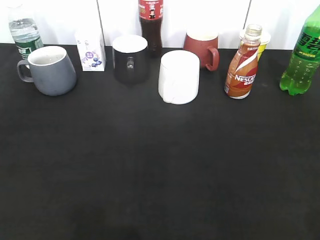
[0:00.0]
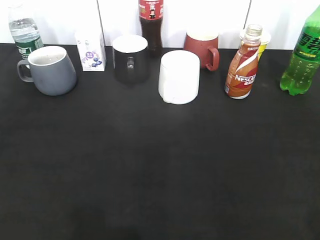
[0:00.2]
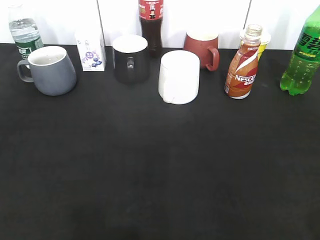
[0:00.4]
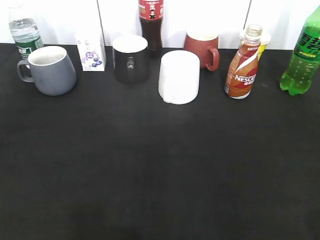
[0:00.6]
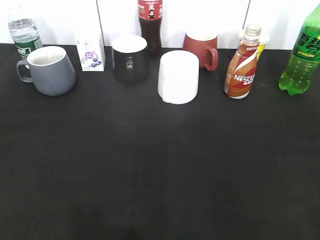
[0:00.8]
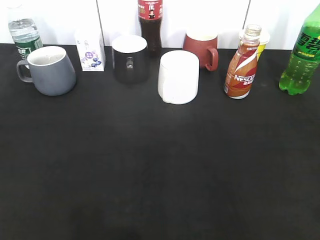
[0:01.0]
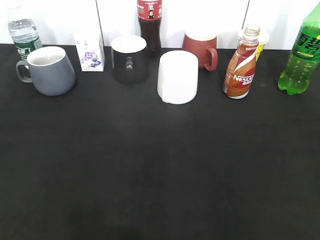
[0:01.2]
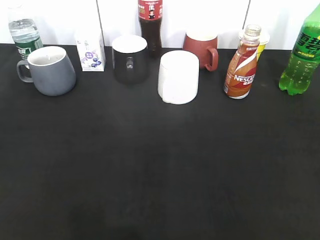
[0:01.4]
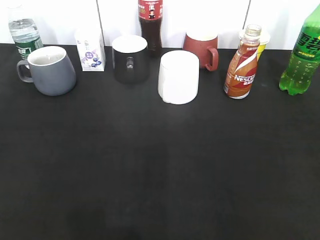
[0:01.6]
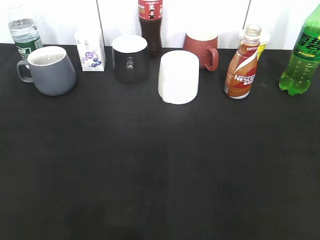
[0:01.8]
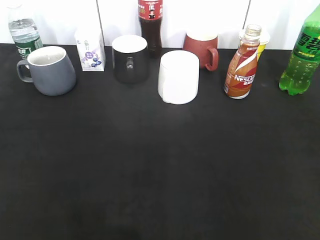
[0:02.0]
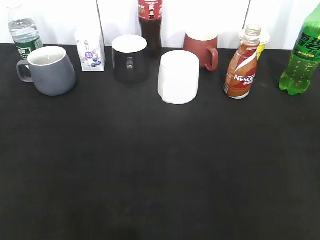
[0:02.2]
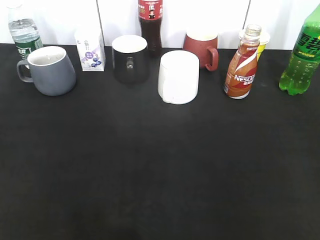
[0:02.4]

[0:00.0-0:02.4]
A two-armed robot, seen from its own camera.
0:00.0 to 0:01.2: The left gripper closes.
0:01.2 to 0:02.4: The two grippers keep their place.

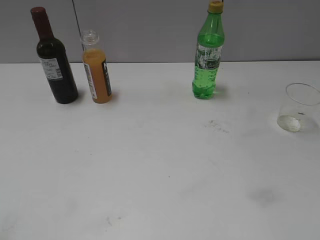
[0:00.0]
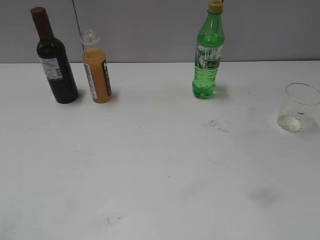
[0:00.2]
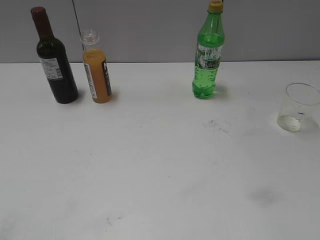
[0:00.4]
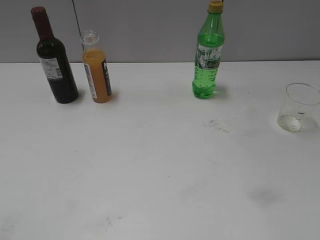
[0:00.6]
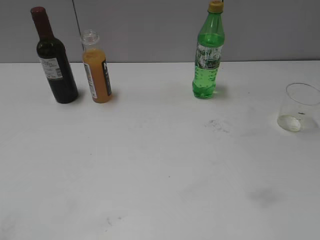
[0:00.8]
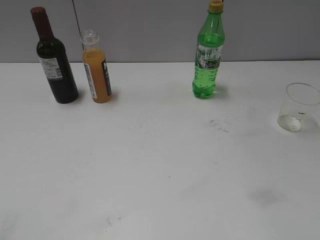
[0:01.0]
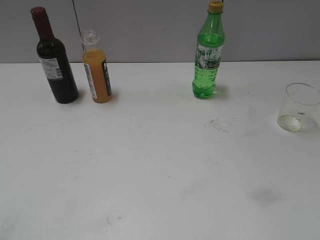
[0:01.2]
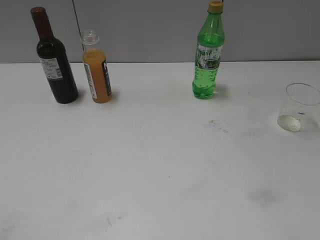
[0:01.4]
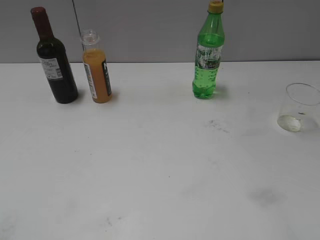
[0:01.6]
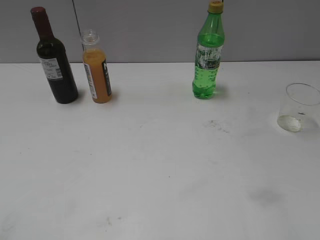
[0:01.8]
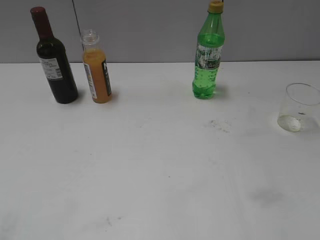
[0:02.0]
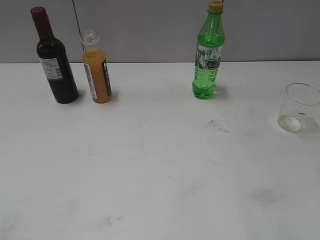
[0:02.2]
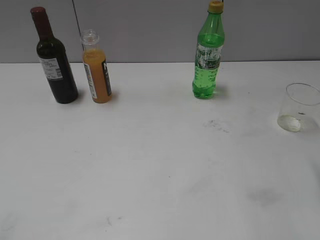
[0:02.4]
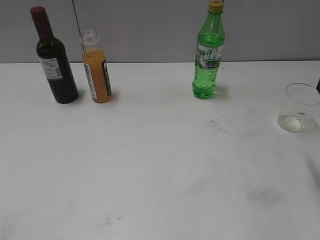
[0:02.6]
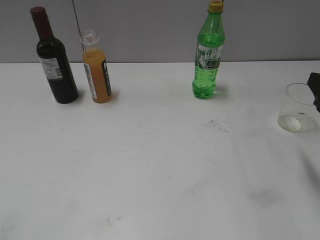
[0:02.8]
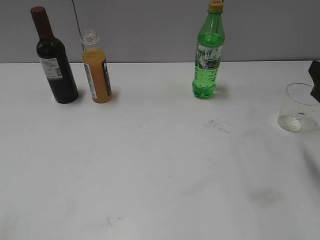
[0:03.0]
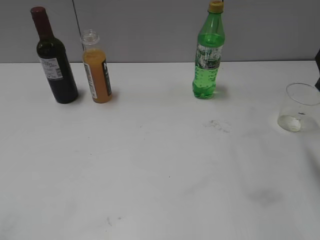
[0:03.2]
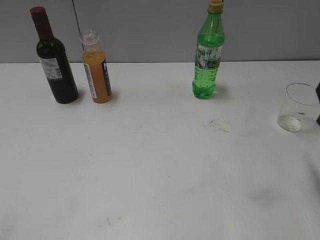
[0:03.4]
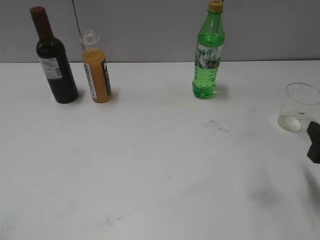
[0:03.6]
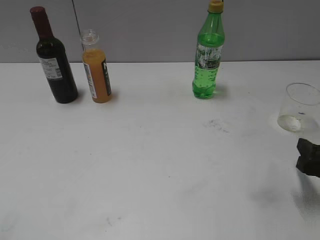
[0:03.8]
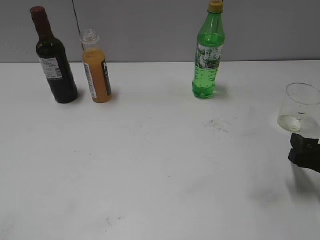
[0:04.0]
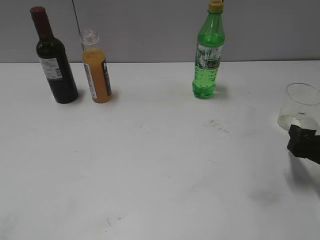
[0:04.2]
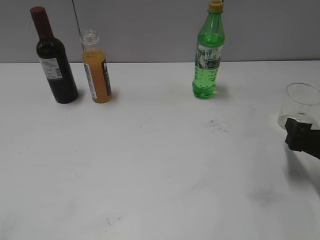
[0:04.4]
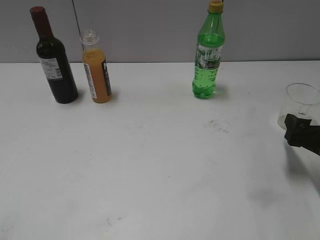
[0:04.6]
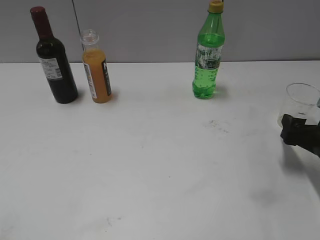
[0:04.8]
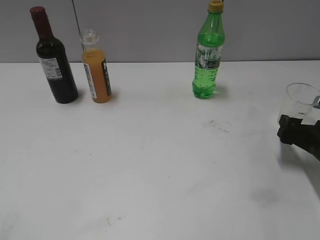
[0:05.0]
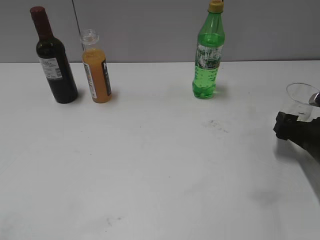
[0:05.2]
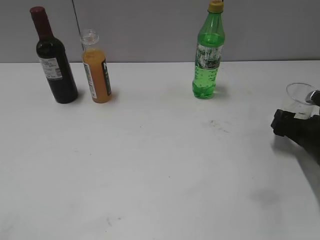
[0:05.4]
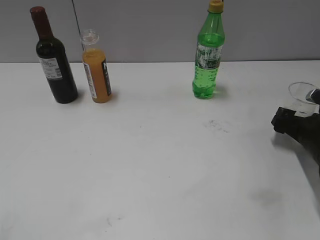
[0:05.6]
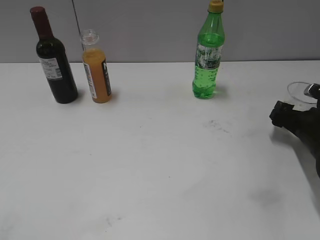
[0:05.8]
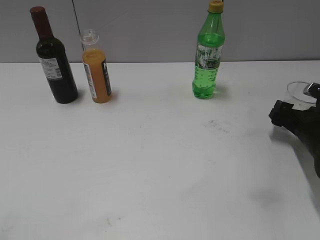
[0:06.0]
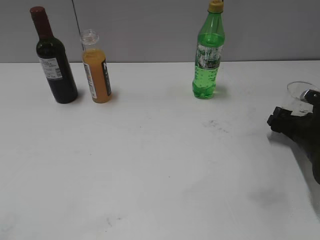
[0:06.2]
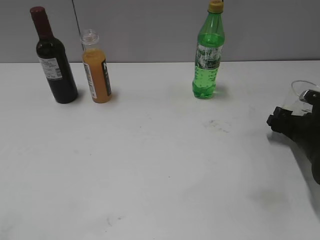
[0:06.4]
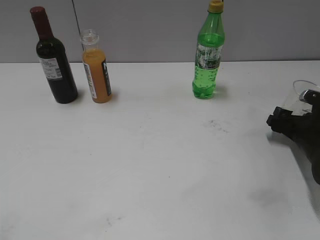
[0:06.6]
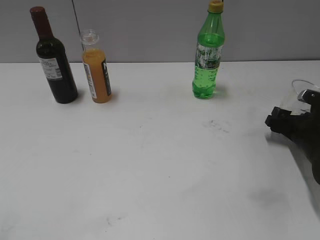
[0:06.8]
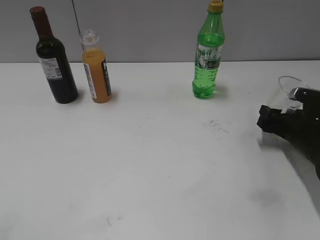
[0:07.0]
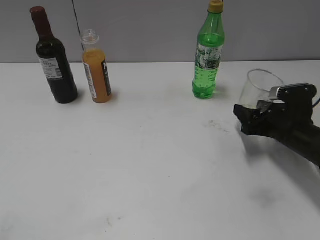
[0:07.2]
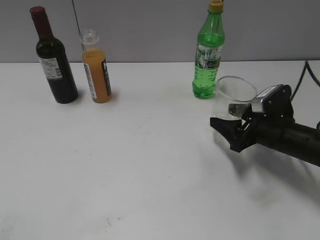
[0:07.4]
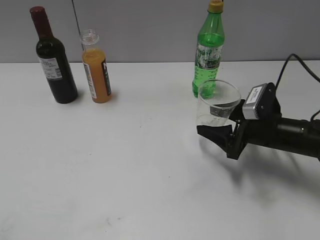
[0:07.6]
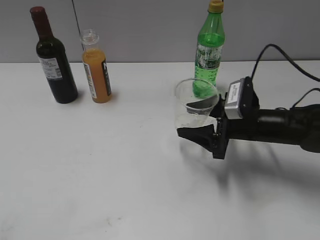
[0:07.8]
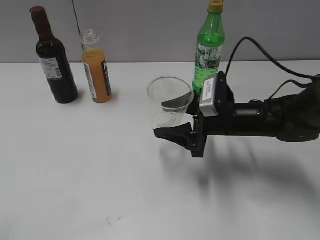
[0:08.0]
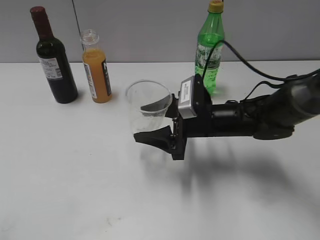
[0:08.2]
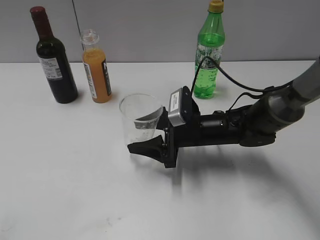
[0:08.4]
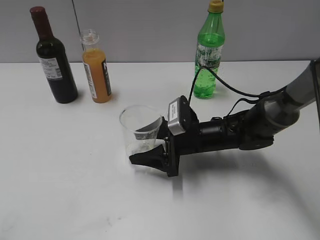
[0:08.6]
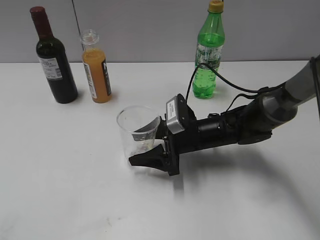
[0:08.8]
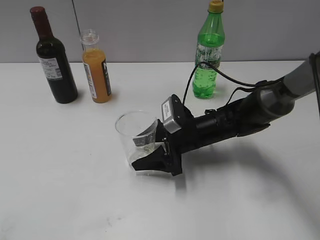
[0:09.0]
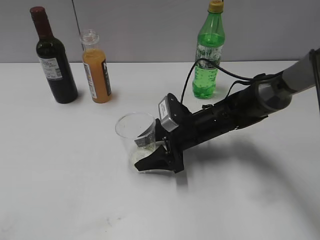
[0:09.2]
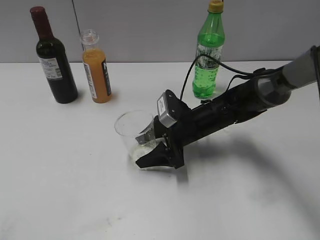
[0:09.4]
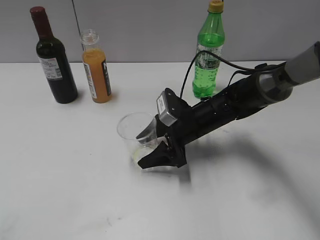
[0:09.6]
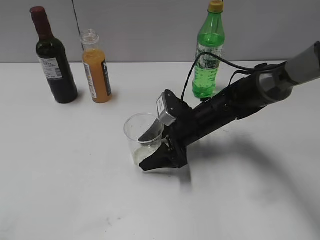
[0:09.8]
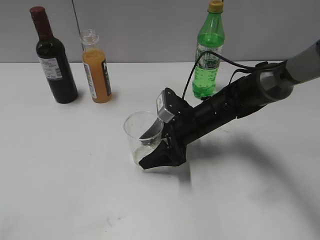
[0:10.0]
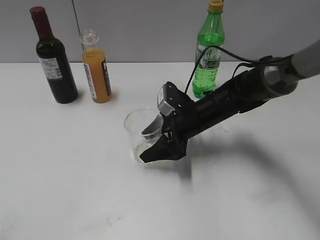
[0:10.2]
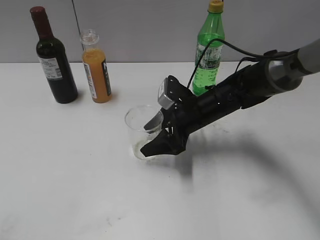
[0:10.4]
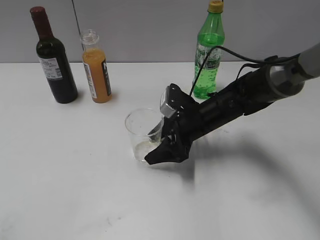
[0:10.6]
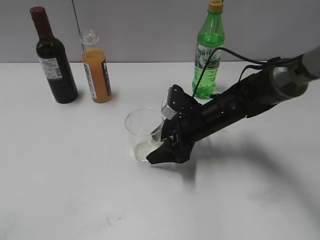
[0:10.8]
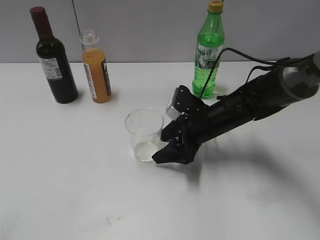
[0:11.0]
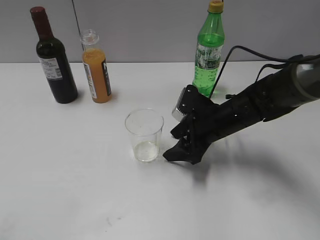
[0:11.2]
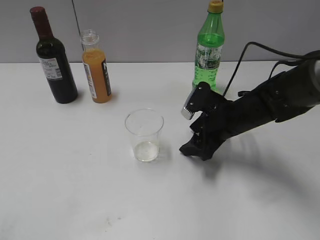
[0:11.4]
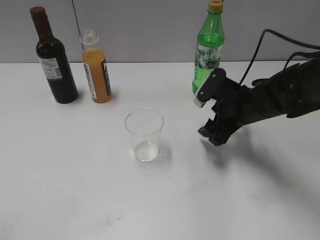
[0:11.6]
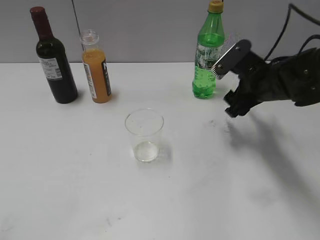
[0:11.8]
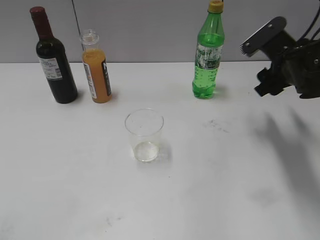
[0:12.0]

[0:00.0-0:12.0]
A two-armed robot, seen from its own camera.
Step, 0:02.6 to 0:06.6: Grasp the transparent cup with right gripper.
Step, 0:06.8 to 0:11.0: Place the transparent cup on the table with right gripper.
0:01.6 to 0:03.0: The right gripper shifts roughly 20 cm forward and downward.
0:03.0 to 0:04.4: The right gripper goes about 10 cm downward, and opens up.
0:04.4 to 0:06.0: The right gripper goes about 10 cm forward.
0:06.0 to 0:07.6: The right gripper travels to the left by approximately 10 cm, and closes up.
0:07.6 to 0:09.0: The right gripper heads to the left, covering about 15 cm.
0:09.0 to 0:10.4: The right gripper opens its fingers.
0:10.4 to 0:12.0: The right gripper heads to the right and upward, covering roughly 15 cm.

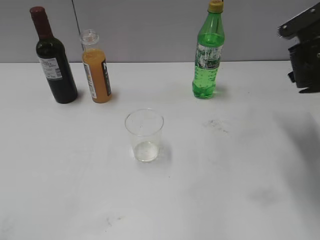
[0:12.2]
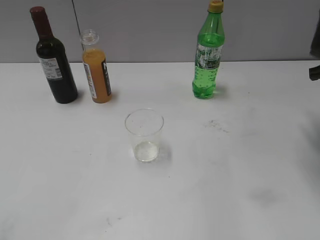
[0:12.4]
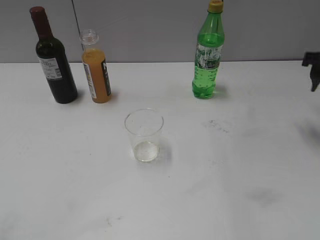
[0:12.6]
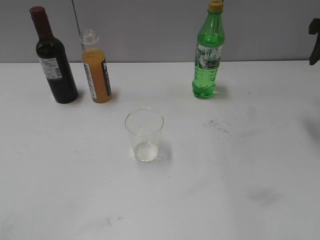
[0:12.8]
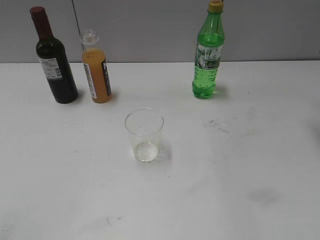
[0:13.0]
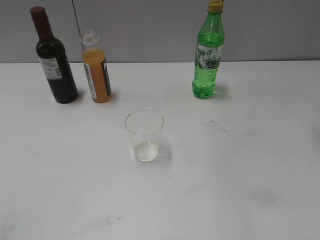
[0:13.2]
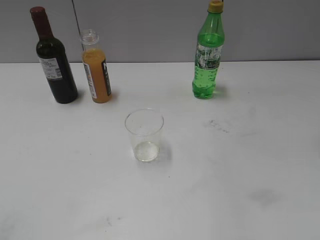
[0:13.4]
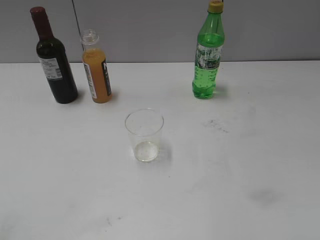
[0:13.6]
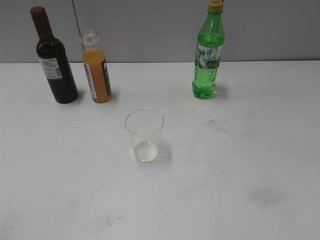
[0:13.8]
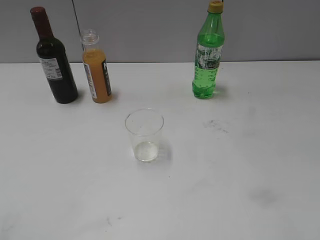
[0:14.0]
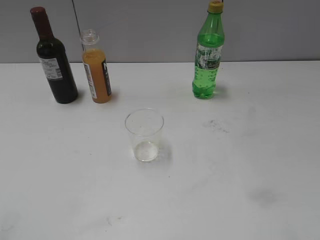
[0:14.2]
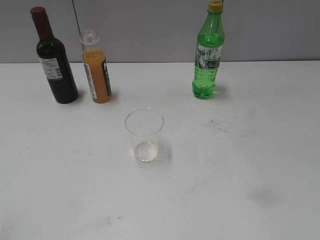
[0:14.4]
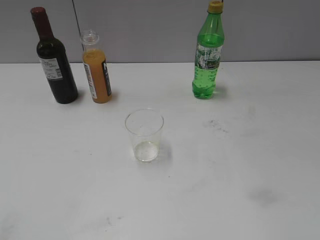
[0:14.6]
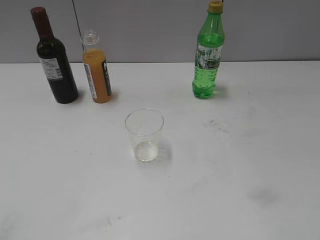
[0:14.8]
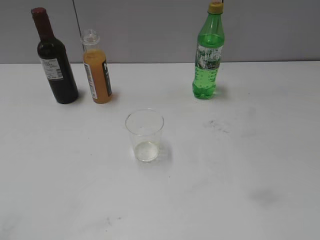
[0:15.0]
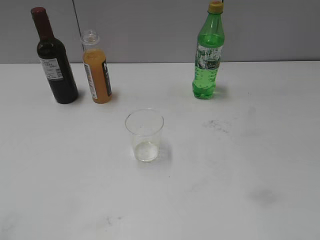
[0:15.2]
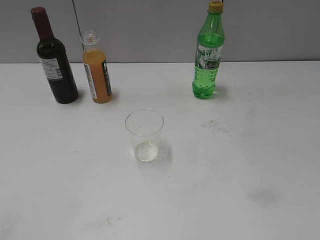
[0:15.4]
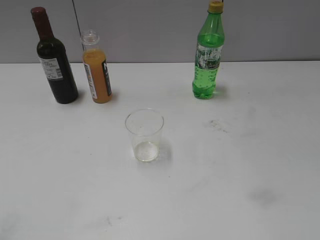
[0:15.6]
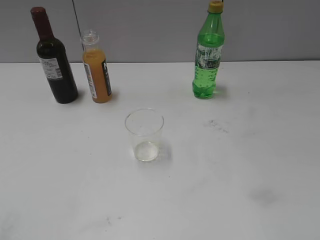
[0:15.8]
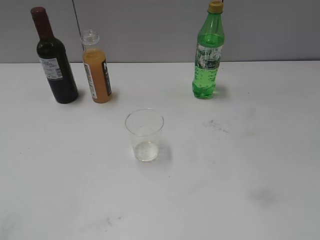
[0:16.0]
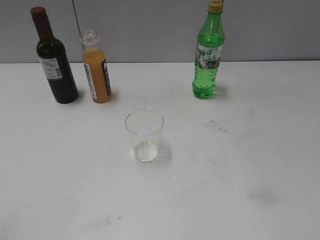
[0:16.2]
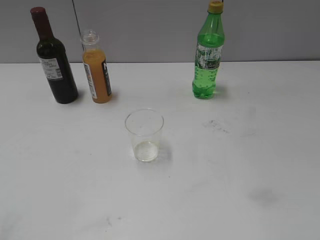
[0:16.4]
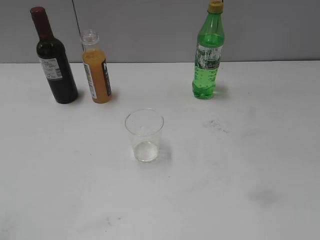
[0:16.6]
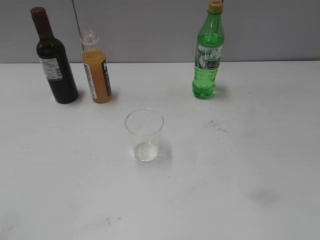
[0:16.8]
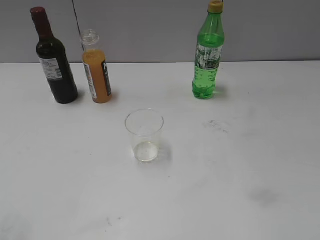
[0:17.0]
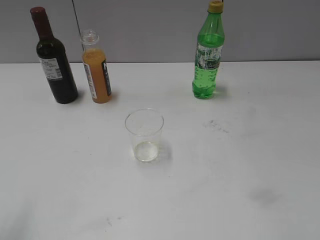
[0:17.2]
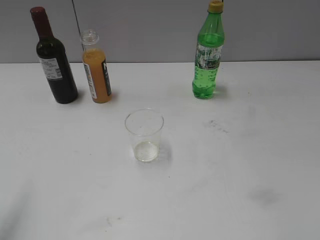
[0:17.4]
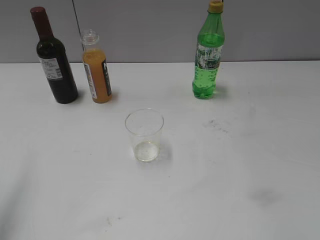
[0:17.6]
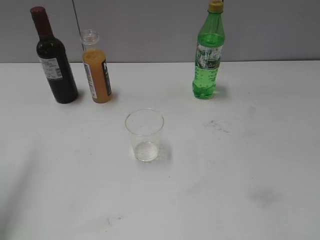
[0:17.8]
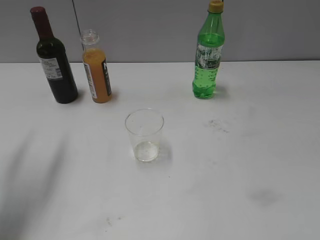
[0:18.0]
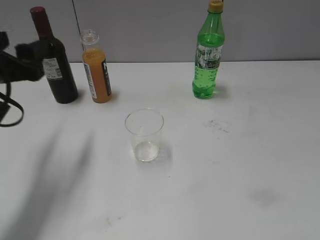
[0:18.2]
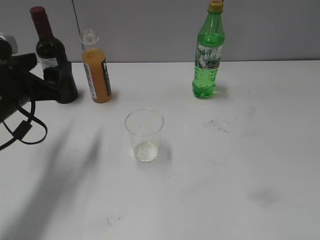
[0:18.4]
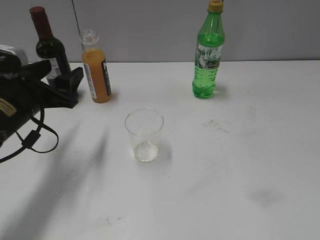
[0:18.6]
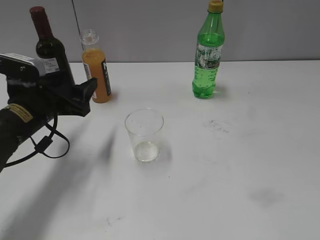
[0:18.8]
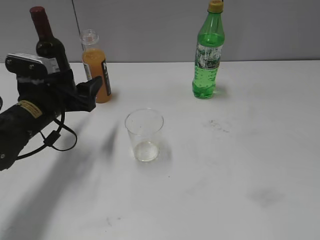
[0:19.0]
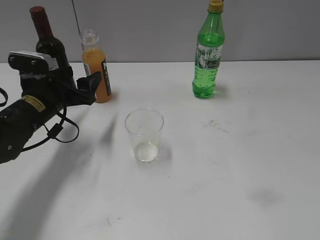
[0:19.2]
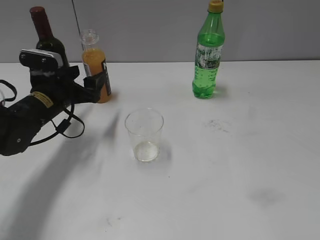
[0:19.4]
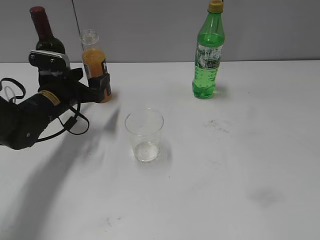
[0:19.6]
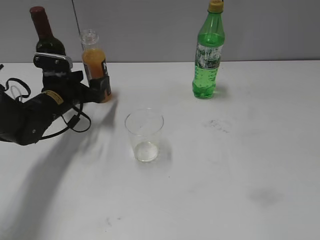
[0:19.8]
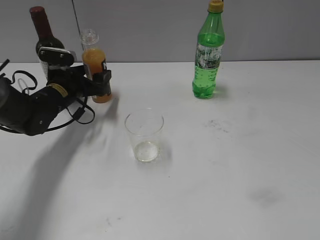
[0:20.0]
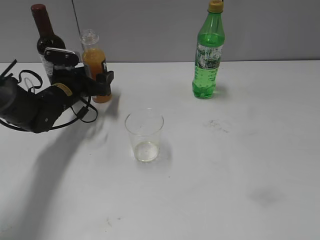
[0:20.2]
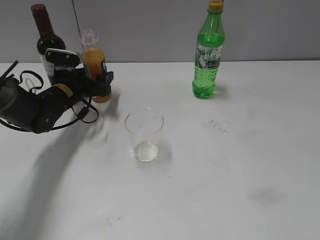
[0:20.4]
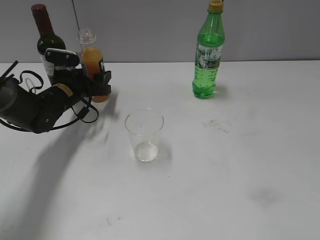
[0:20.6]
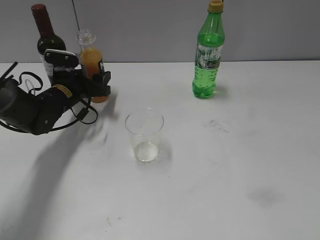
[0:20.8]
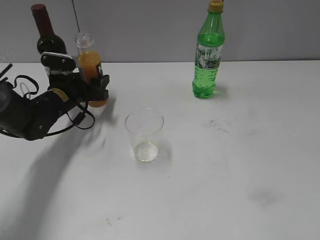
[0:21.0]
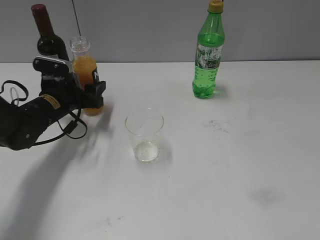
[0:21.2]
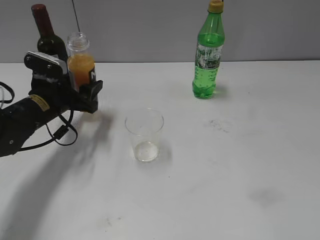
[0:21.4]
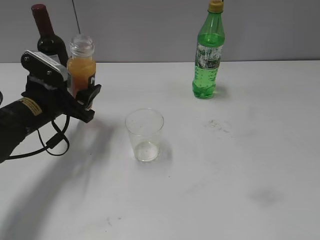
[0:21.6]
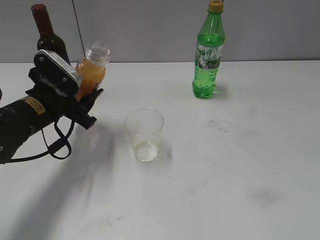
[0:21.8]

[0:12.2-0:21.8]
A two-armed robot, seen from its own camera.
Step, 0:12.2 to 0:20.8: Grasp the bottle with orange juice with left gripper.
0:12.2 to 0:13.8: The right gripper goes about 20 cm upward and backward.
0:17.0 to 0:18.6: The left gripper goes about 25 cm forward and downward.
0:18.6 to 0:20.2: The left gripper moves forward and downward, approximately 15 cm.
0:20.2 to 0:21.8: The left gripper moves backward and upward, about 15 cm, and closes its fingers.
